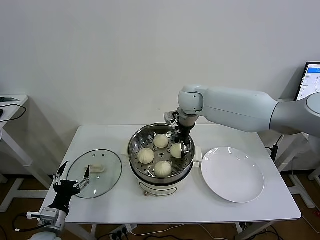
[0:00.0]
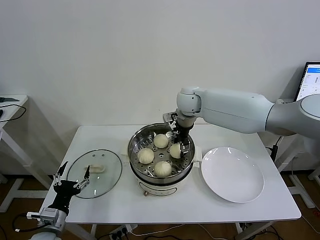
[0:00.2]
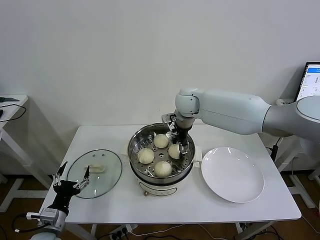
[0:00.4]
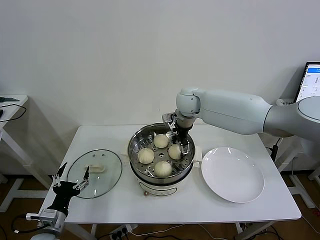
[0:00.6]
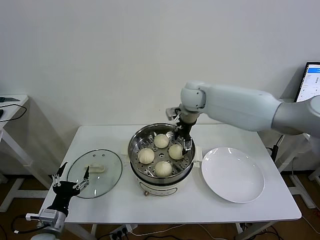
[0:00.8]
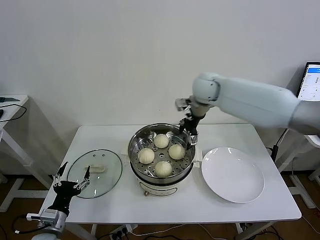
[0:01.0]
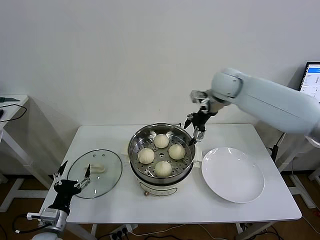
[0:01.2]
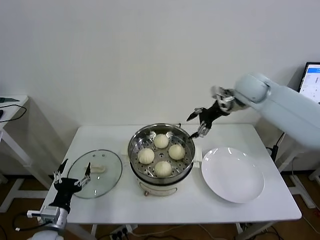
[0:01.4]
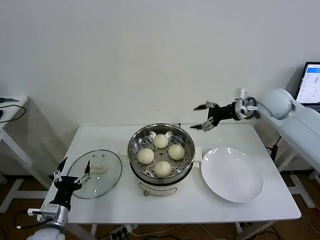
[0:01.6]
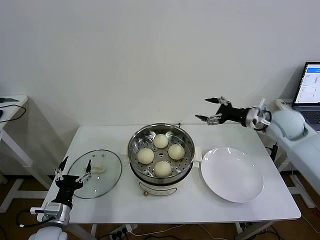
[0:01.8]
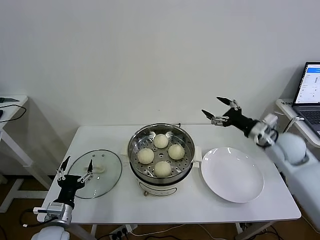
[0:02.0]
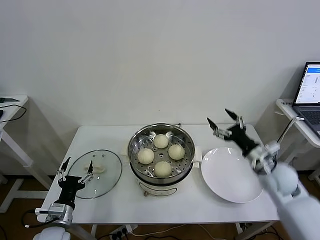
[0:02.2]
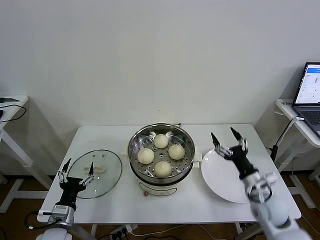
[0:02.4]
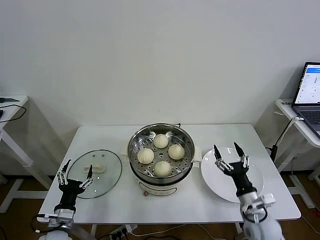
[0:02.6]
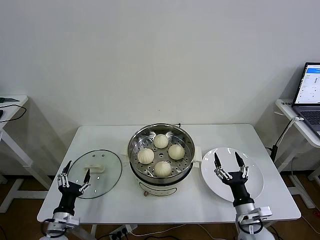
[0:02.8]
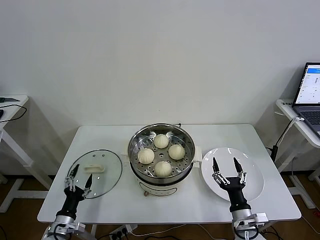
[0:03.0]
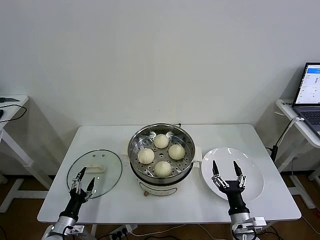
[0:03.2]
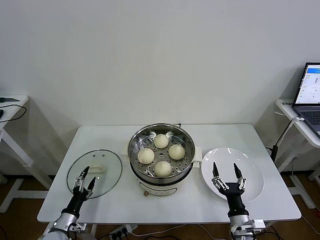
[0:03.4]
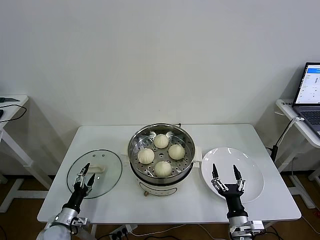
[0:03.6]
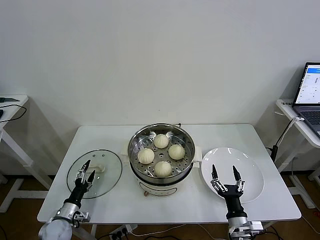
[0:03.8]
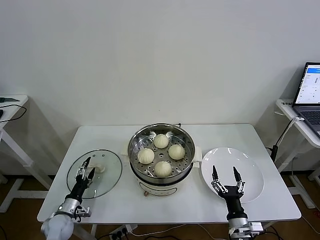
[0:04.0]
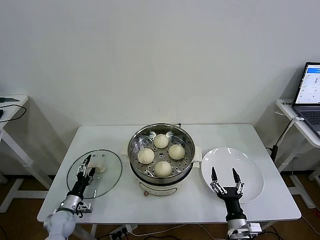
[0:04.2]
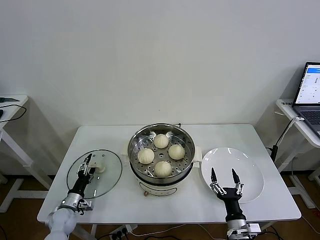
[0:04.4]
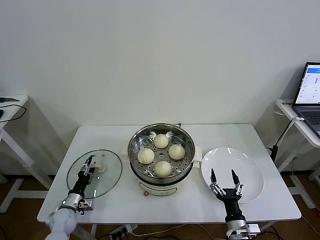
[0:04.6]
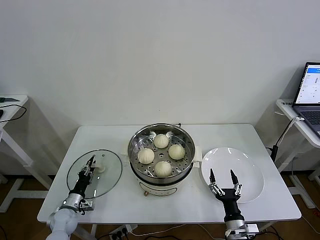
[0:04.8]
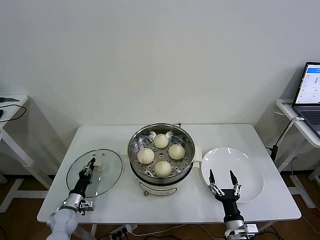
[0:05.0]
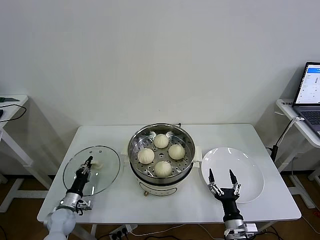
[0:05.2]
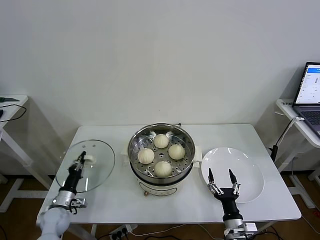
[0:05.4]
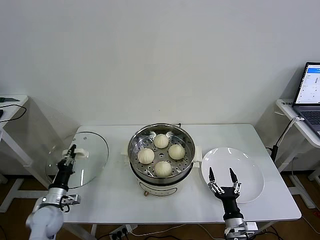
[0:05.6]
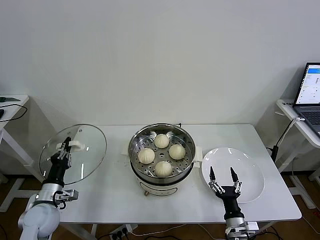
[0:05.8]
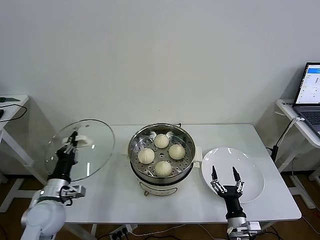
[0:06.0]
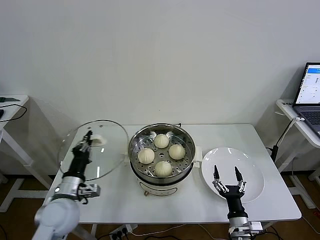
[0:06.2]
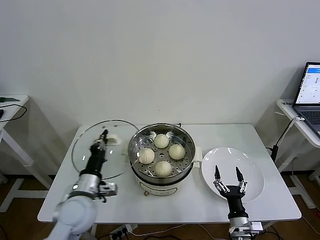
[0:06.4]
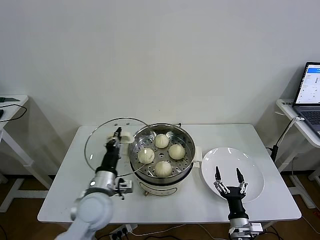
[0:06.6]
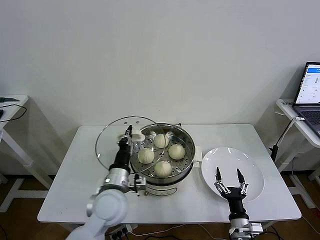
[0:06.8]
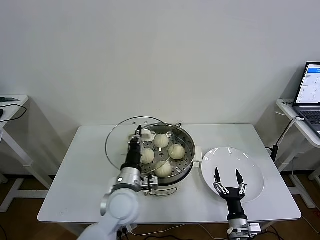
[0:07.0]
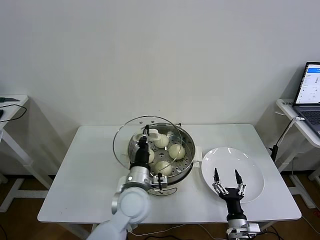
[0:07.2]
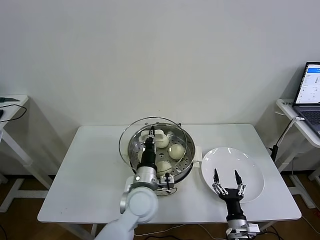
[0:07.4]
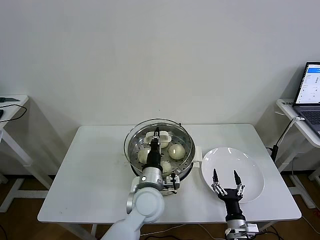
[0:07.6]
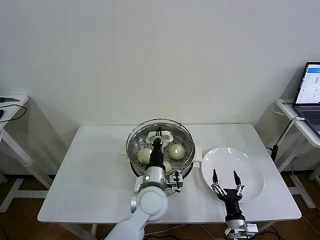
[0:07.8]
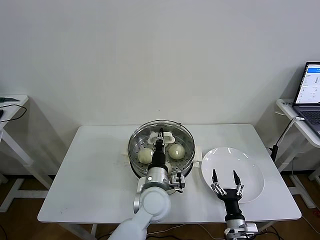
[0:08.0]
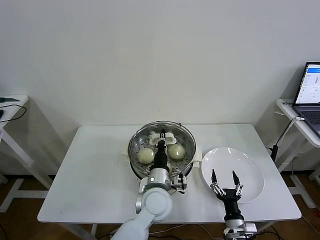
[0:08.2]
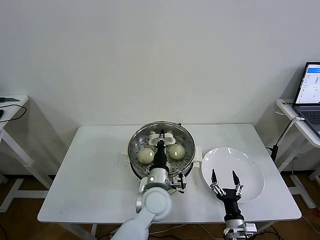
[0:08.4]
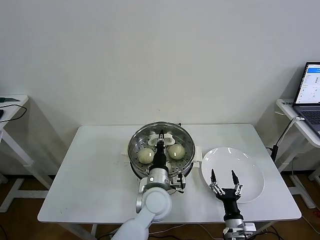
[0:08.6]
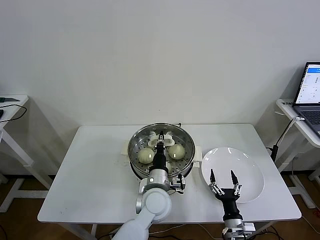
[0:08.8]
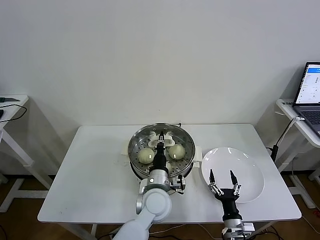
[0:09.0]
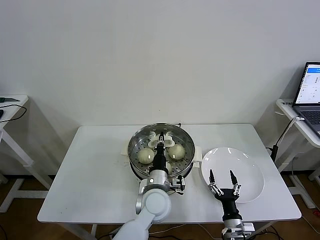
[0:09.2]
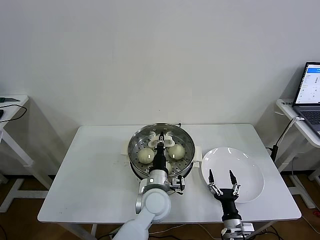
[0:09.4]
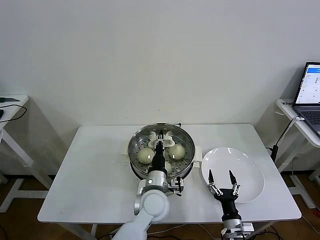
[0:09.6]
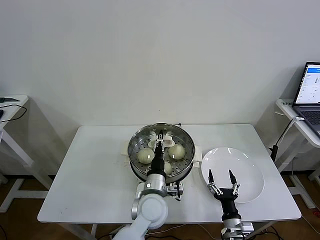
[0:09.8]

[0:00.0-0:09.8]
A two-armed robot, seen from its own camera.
Task of the whole recording: take steamed baozi put them in steamer then cover it.
Step, 0:00.8 to 0:05.0: Grasp the pot lid with left gripper.
0:00.0 to 0:01.4: The right gripper travels to the right by roughly 15 cm, and opens.
0:01.4 to 0:02.8: The right gripper is displaced backward and downward by approximately 50 cm. The left gripper goes about 5 cm downward.
0:02.8 to 0:04.2: The left gripper is displaced forward and downward by about 10 cm. The right gripper goes approximately 5 cm downward.
0:04.2 to 0:05.6: The left gripper is displaced upward by roughly 5 cm, and closes up.
0:05.6 to 0:07.0: The left gripper shifts about 30 cm to the right and upward.
0:07.0 to 0:08.4: The left gripper heads to the right, covering approximately 10 cm.
0:08.4 to 0:09.8: The left gripper opens its fingers.

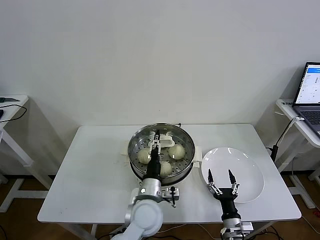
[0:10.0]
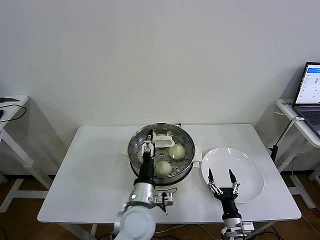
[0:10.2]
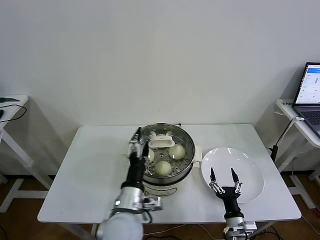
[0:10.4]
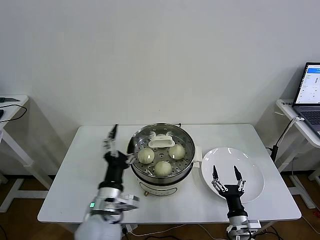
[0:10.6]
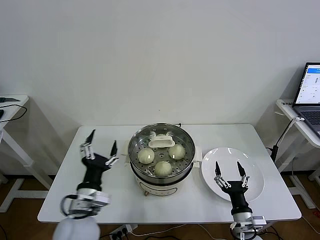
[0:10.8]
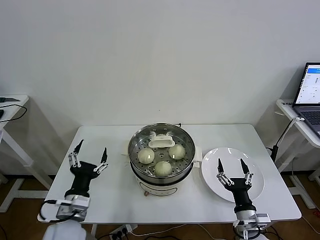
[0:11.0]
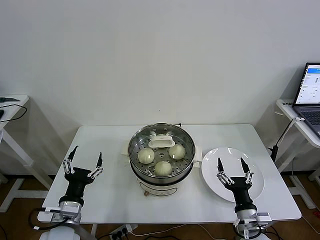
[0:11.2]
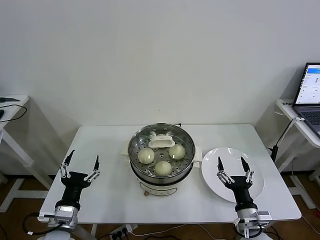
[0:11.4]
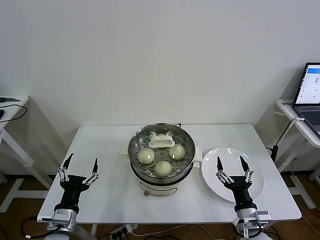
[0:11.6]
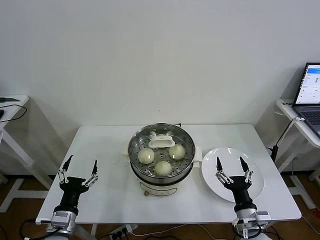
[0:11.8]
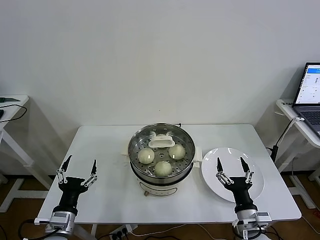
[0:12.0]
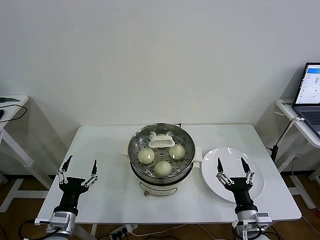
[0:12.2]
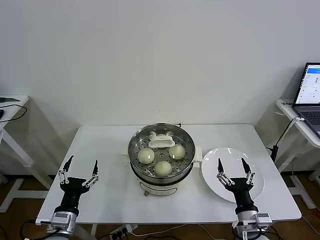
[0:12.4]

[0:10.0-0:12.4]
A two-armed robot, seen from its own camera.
Task of the whole recording: take steamed baozi put them in steamer then cover it.
0:10.0 to 0:11.2: The left gripper shifts some 20 cm to the left, while the right gripper heads upward, covering approximately 10 cm.
0:11.2 to 0:12.4: The grippers make only small movements.

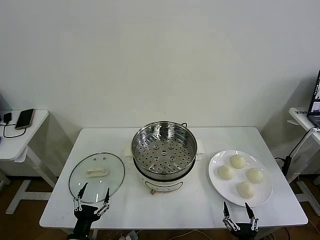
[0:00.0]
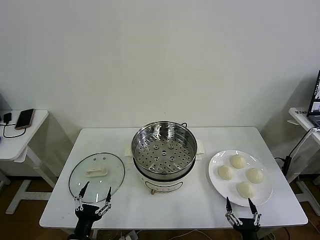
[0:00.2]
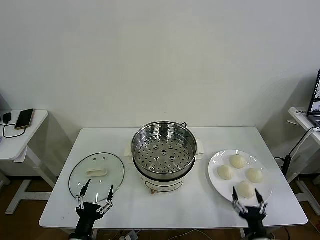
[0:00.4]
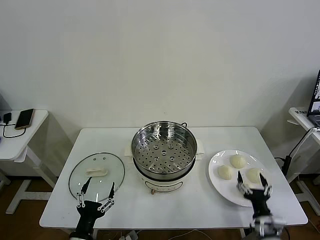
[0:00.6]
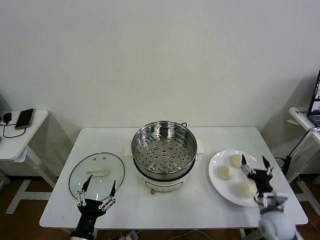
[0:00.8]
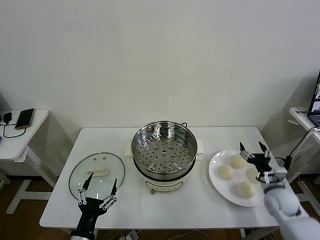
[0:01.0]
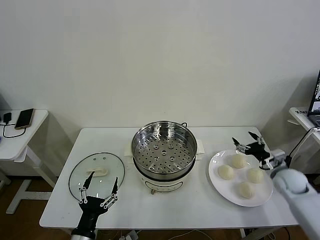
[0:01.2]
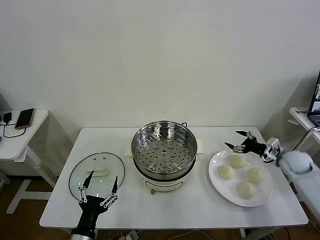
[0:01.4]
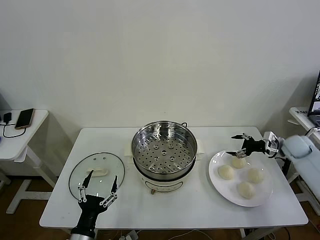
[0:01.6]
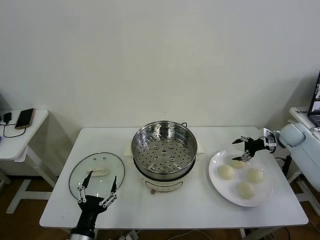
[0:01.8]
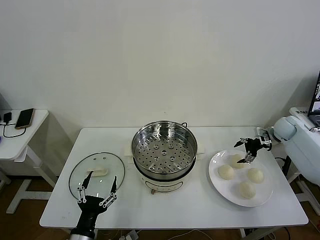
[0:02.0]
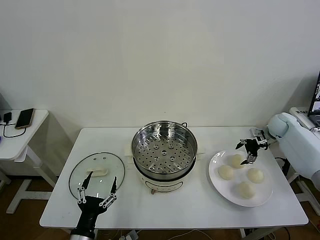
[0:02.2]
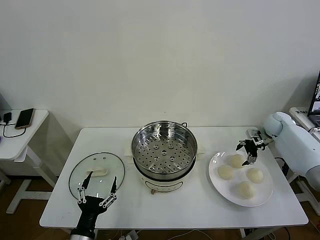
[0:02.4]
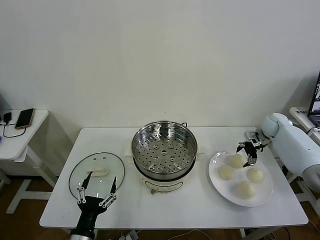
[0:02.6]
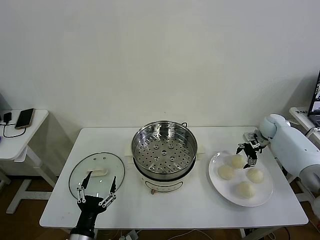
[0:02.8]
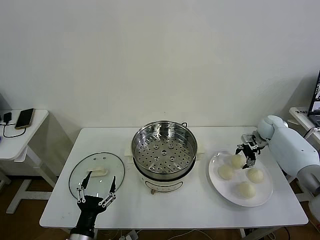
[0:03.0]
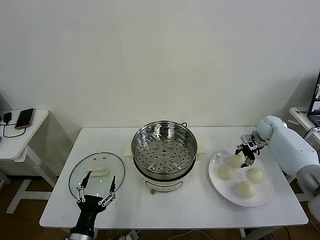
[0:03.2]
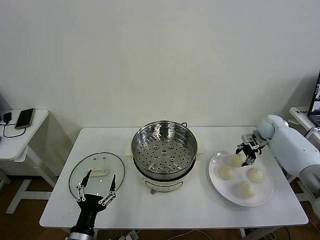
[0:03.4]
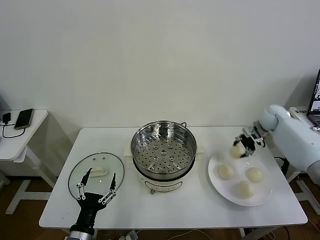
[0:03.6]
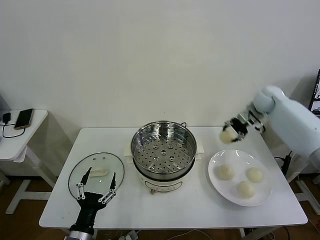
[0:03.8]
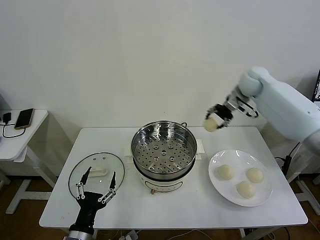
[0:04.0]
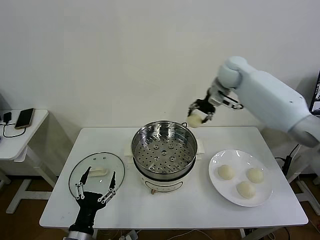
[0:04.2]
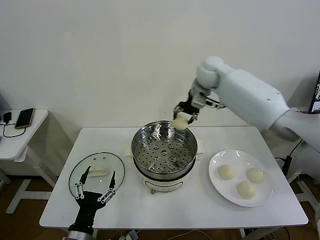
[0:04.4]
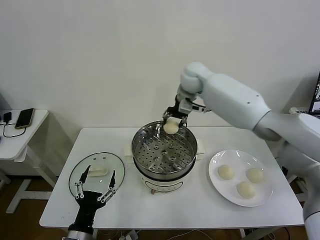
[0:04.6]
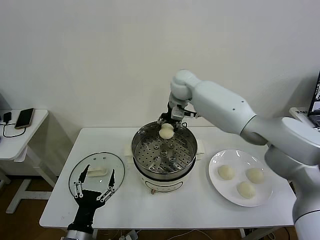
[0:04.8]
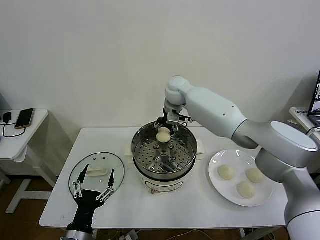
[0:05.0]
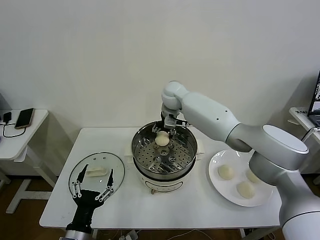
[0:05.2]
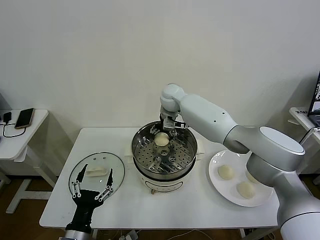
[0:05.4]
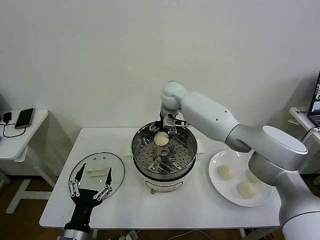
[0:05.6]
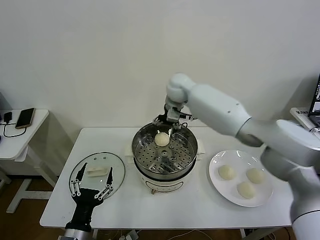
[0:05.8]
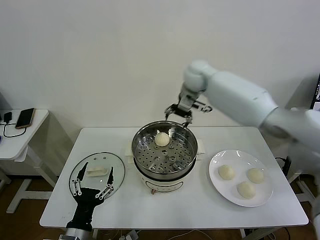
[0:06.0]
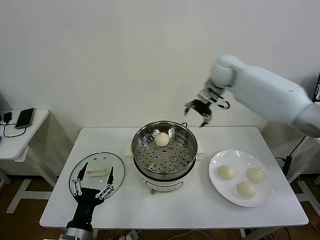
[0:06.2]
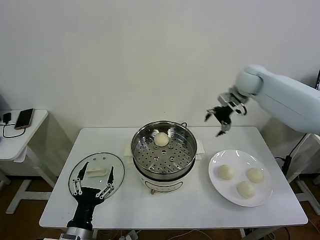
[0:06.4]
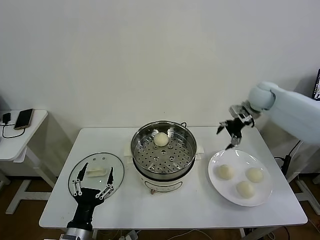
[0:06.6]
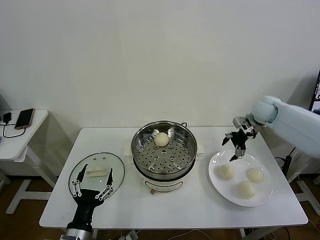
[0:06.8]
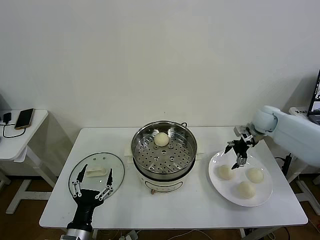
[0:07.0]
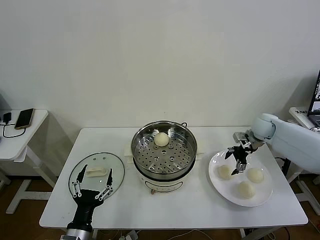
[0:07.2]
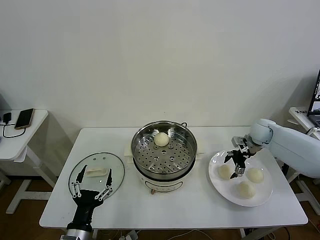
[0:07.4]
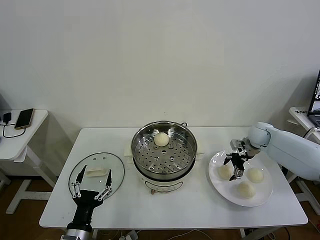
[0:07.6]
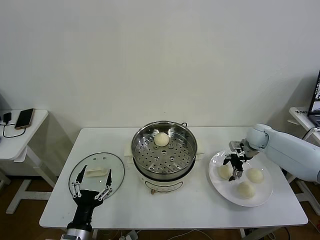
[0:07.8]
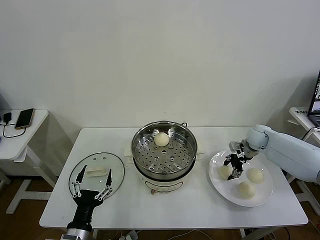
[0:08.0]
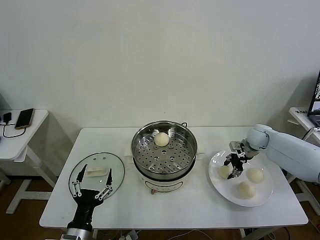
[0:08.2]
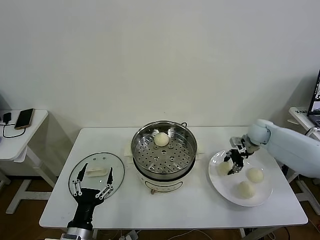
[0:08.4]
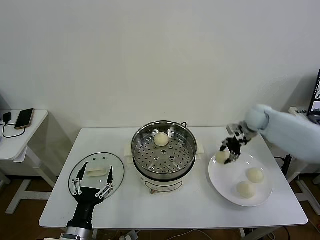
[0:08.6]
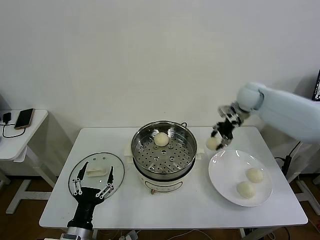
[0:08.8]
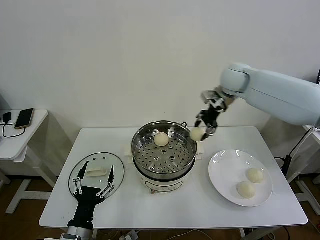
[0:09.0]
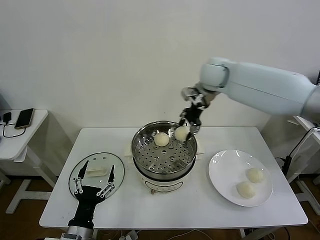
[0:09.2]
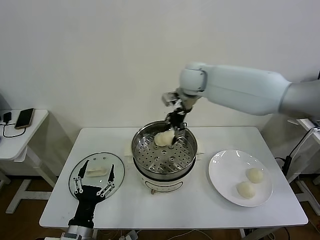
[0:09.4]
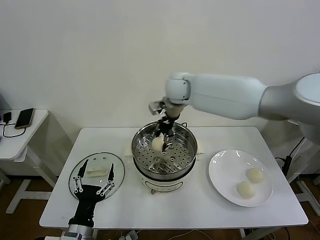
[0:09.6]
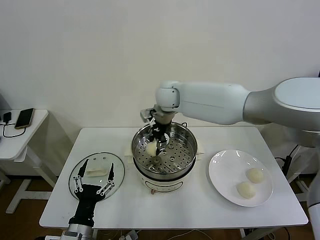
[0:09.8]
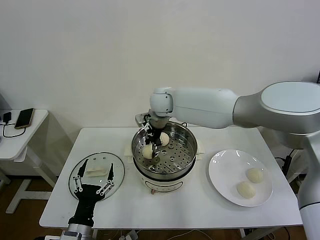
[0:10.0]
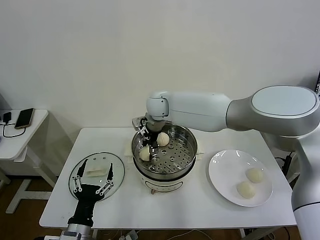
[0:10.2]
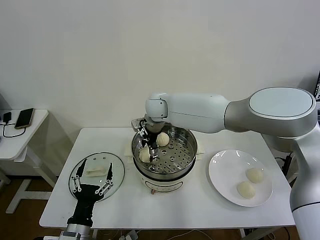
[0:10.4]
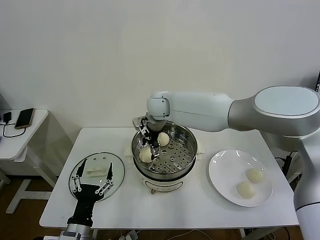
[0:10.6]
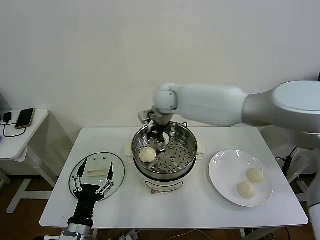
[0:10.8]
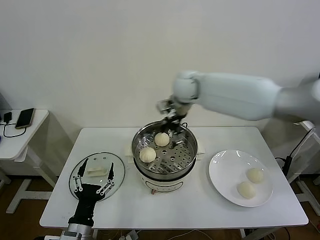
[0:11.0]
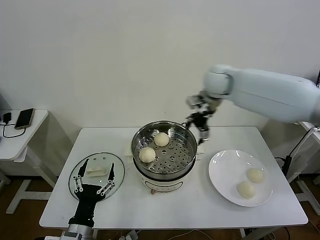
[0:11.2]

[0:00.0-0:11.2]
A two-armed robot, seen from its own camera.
Task of the whole recording: take steamed baozi put them in steamer then cover it.
Step, 0:00.0 to 0:03.2: Grasp the baozi in the plate with right gripper.
Step, 0:03.4 to 0:05.8: Place the baozi on the steamer with right gripper.
Step, 0:06.0 to 0:07.8: Grasp the baozi in the plate with right gripper.
Step, 0:08.0 to 0:10.4: Place the baozi on the steamer with right gripper.
0:01.6 to 0:03.2: The right gripper shifts approximately 10 cm forward and to the left, and closes its fingers.
0:03.2 to 0:04.8: The right gripper moves to the left, approximately 40 cm.
0:04.8 to 0:06.4: The right gripper moves to the right, some 30 cm, and opens.
0:06.4 to 0:08.0: The right gripper heads downward, covering approximately 15 cm, and closes.
0:08.0 to 0:09.6: The right gripper is displaced to the left and upward by approximately 40 cm.
0:09.6 to 0:11.2: The right gripper heads to the right, covering some 20 cm, and opens its fingers.
